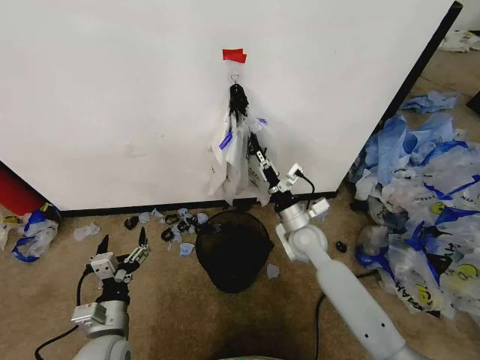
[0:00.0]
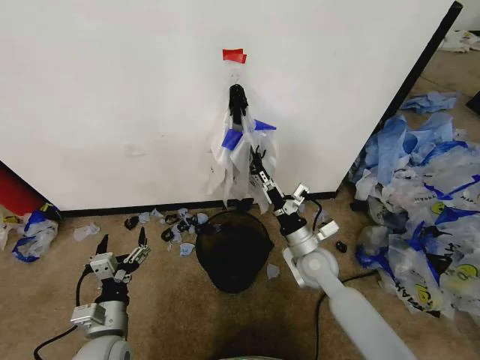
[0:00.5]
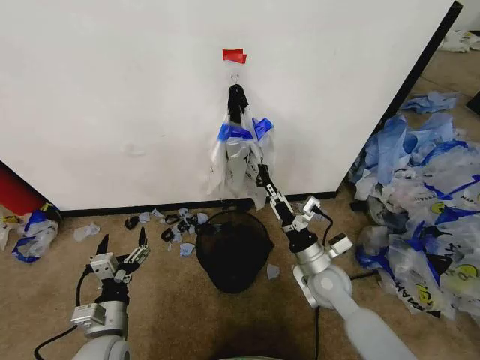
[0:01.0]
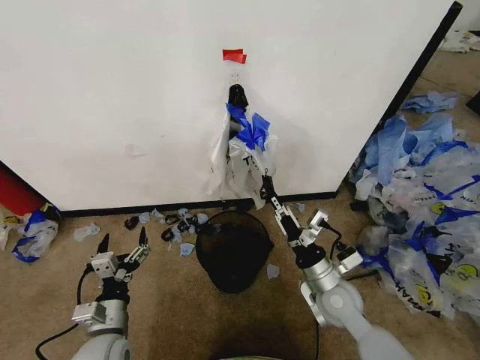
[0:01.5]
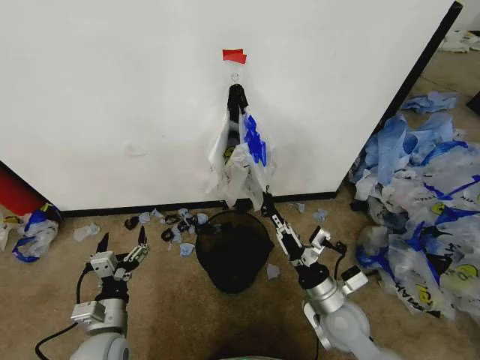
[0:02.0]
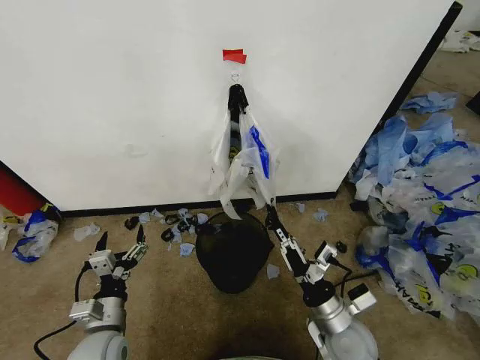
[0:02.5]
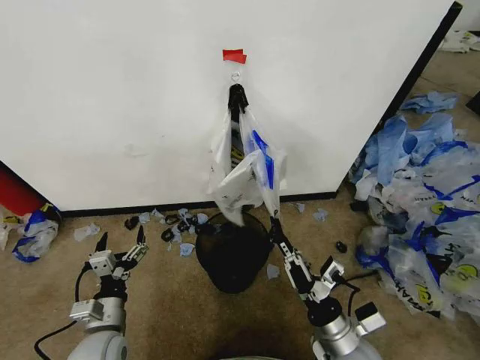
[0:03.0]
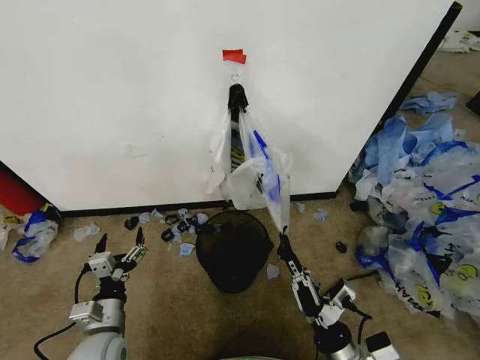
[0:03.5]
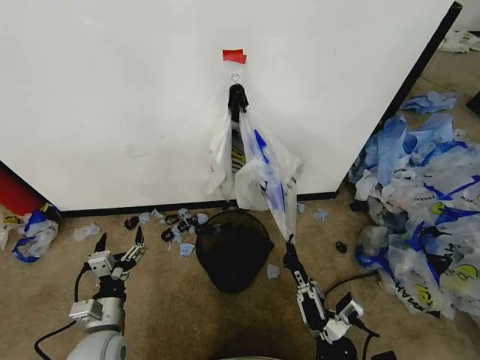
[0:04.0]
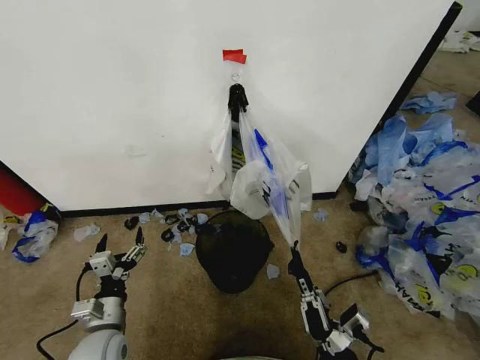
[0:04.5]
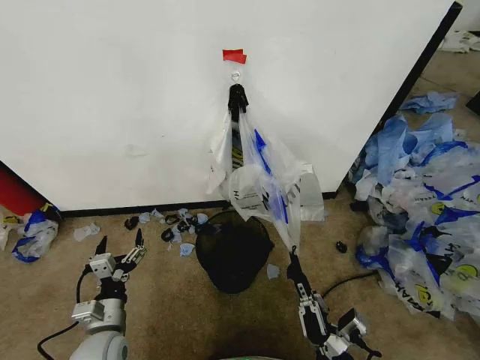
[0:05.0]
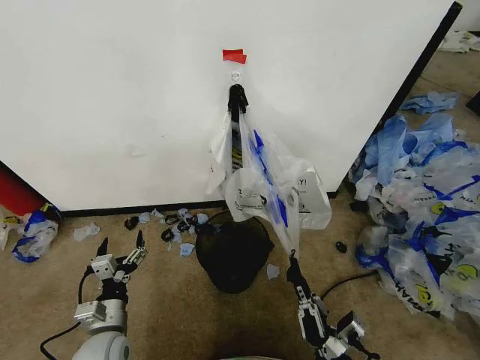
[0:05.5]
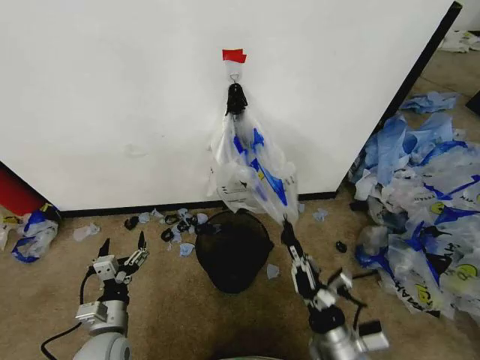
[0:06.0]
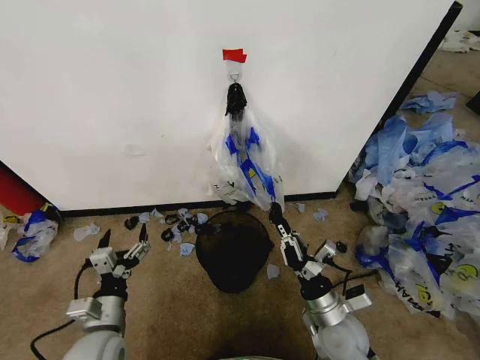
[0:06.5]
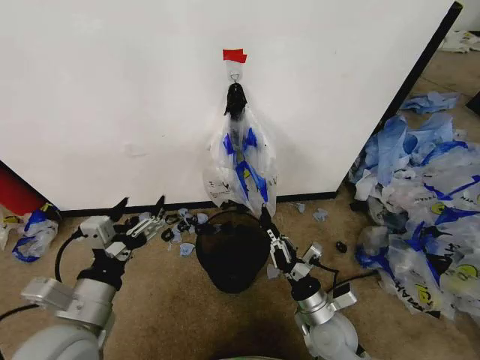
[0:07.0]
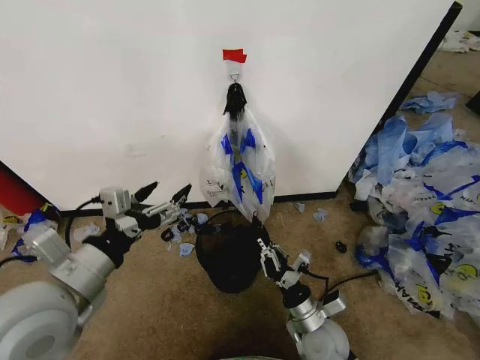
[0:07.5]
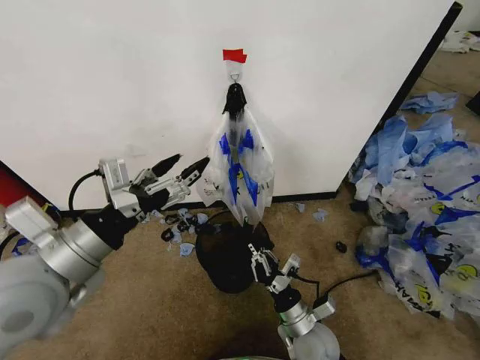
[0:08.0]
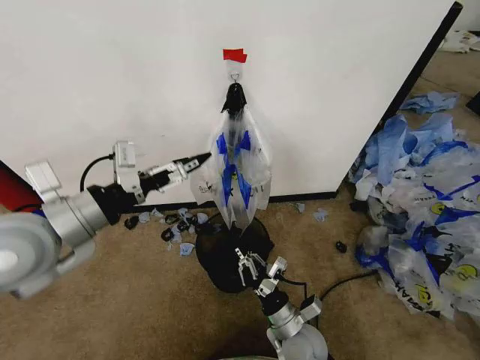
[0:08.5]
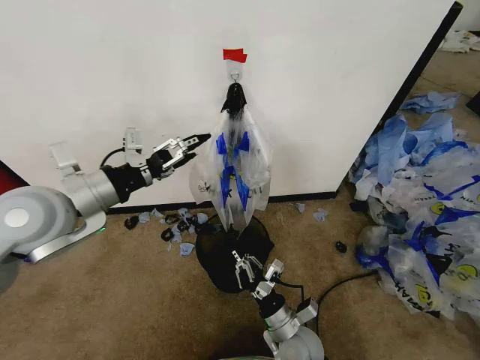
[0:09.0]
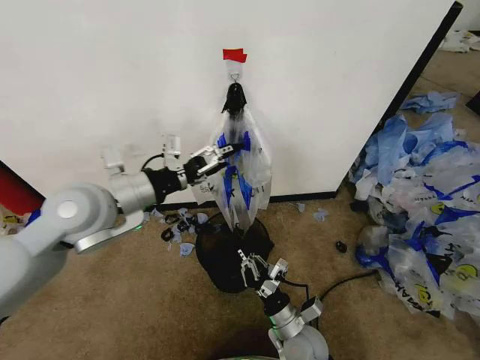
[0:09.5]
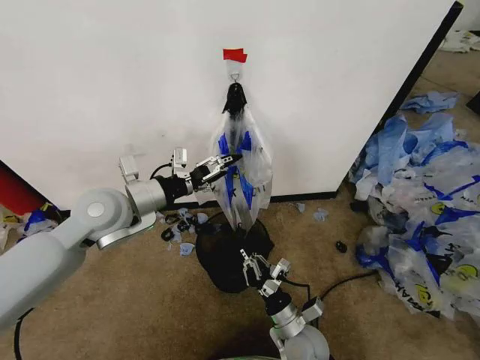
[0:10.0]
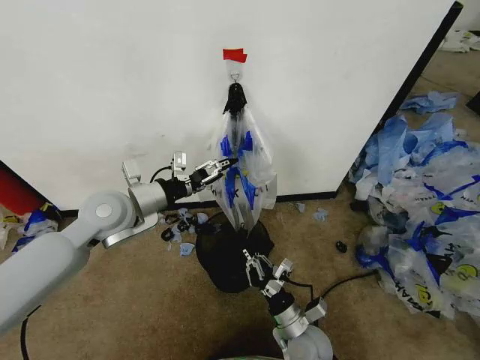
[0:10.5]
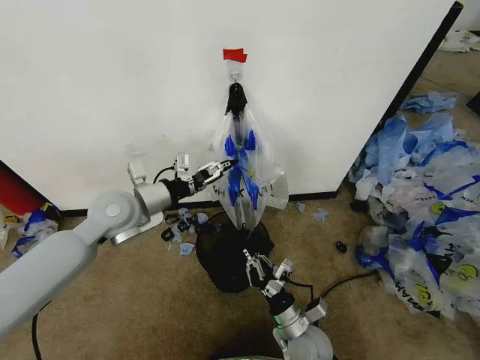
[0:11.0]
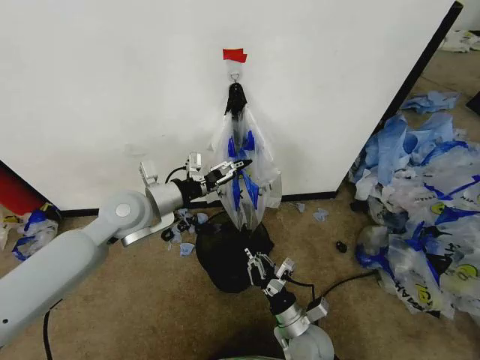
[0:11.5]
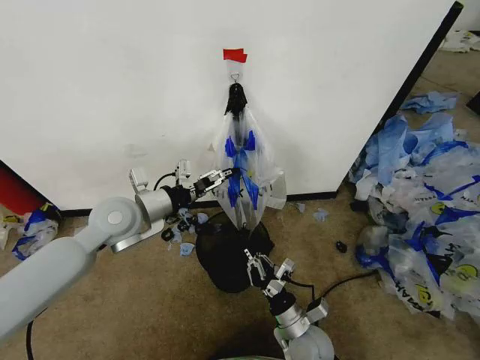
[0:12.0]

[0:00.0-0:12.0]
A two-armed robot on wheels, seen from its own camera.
Task of the whole recording: Pick up the garbage bag from the wall and place it over the trash bin.
0:00.0 to 0:02.0: The right gripper moves backward, about 15 cm.
0:02.0 to 0:04.0: The right gripper heads backward, covering some 15 cm.
0:04.0 to 0:06.0: The right gripper travels forward by approximately 5 cm.
0:06.0 to 0:08.0: The right gripper travels forward by some 5 cm, while the left gripper travels upward by roughly 30 cm.
0:08.0 to 0:10.0: The left gripper travels forward by roughly 15 cm.
0:10.0 to 0:12.0: The grippers make only small movements.

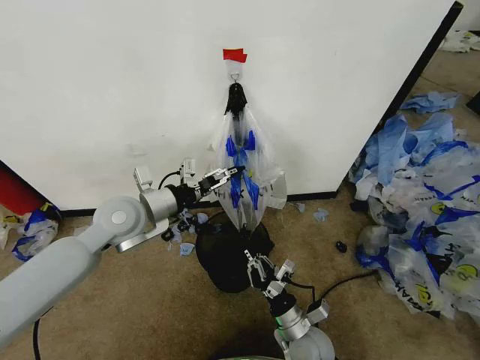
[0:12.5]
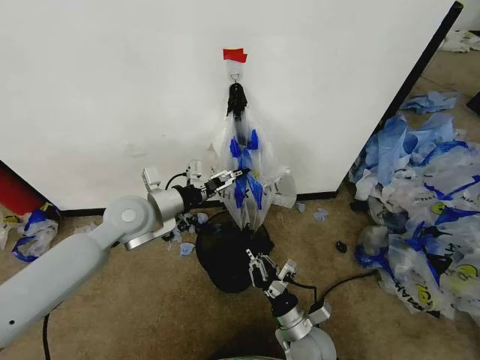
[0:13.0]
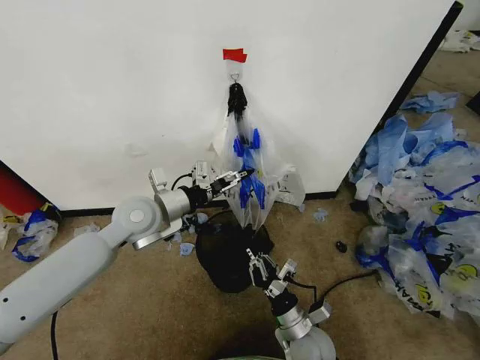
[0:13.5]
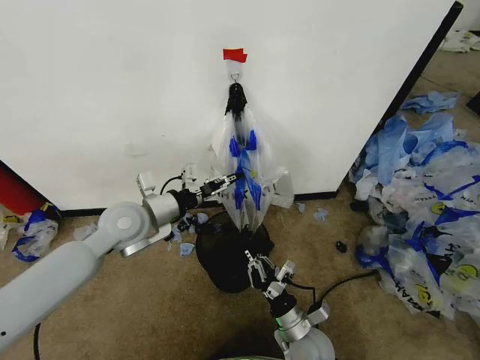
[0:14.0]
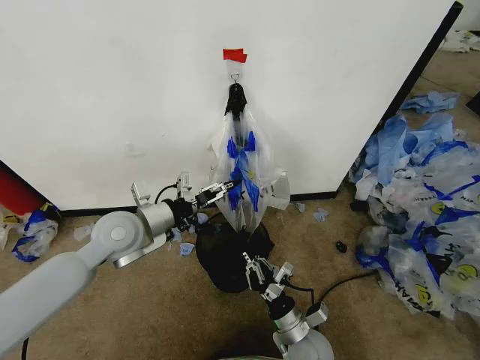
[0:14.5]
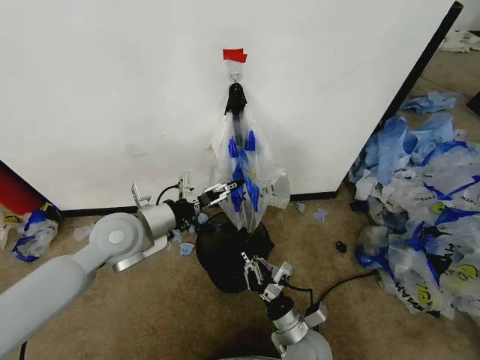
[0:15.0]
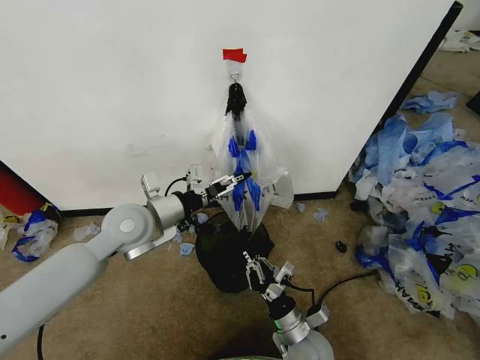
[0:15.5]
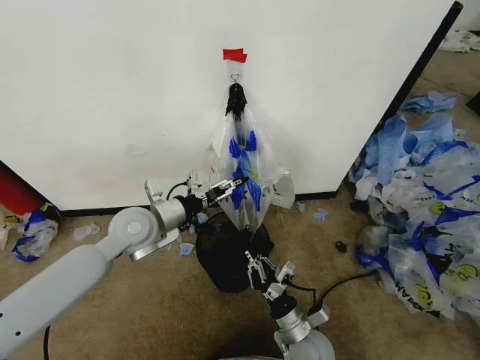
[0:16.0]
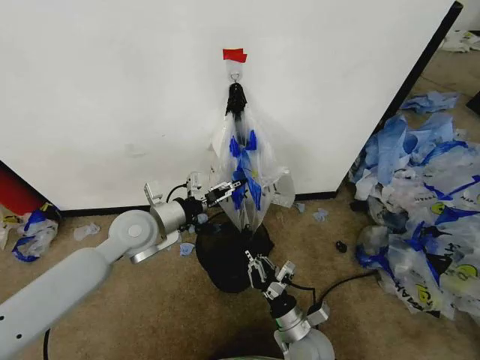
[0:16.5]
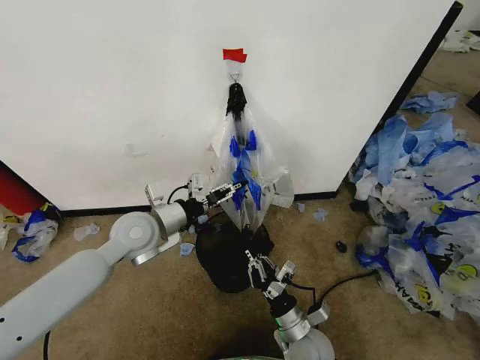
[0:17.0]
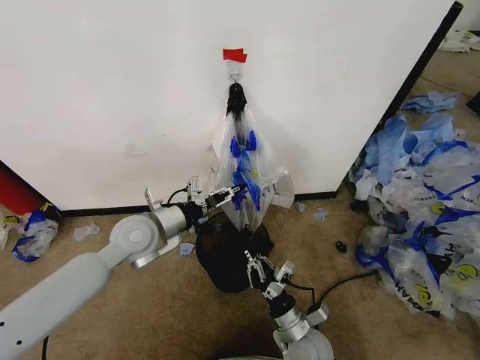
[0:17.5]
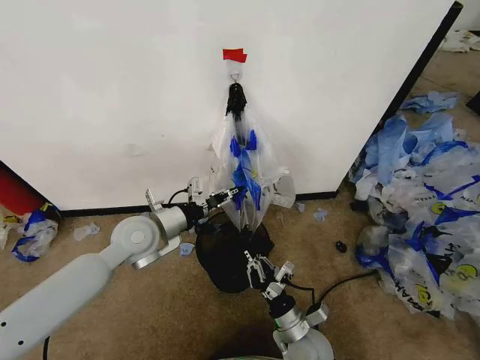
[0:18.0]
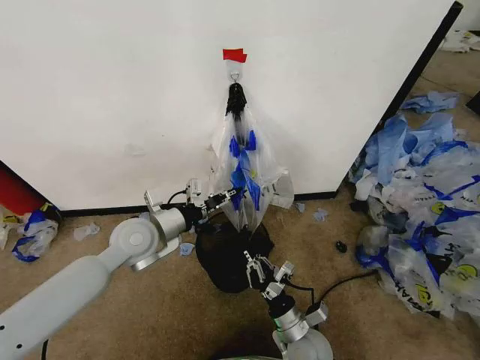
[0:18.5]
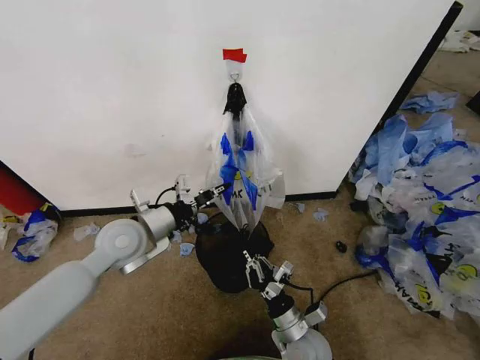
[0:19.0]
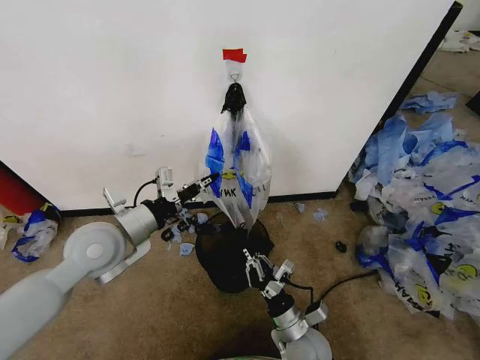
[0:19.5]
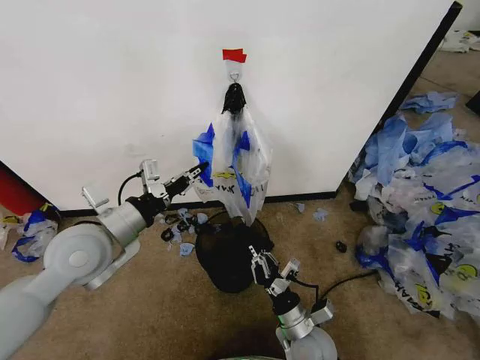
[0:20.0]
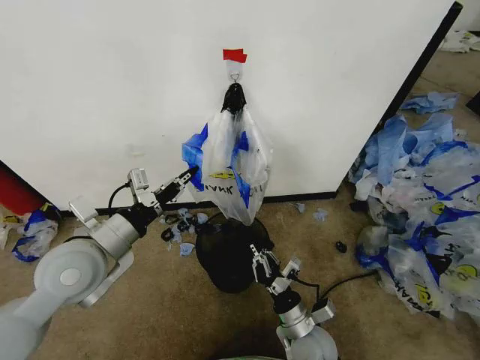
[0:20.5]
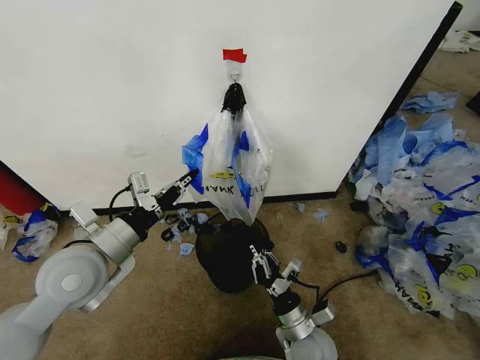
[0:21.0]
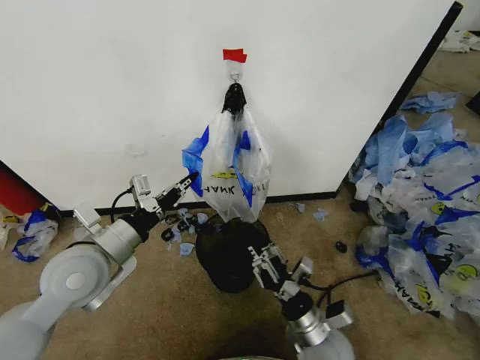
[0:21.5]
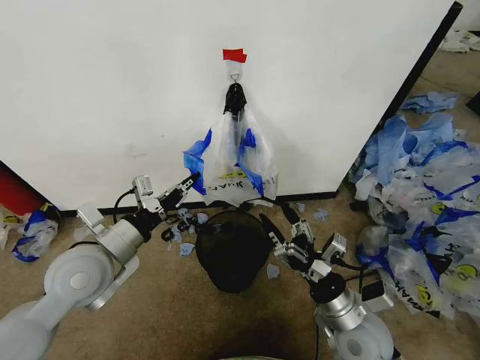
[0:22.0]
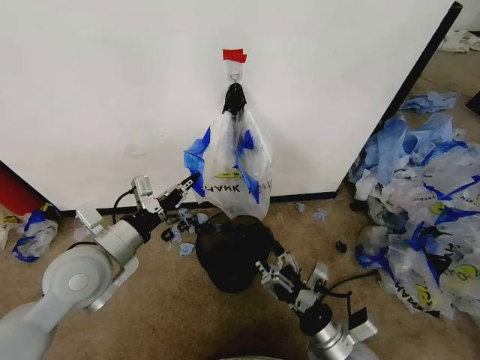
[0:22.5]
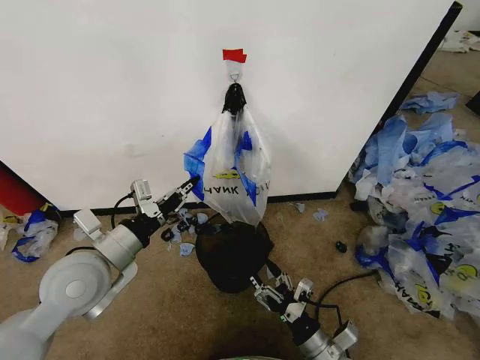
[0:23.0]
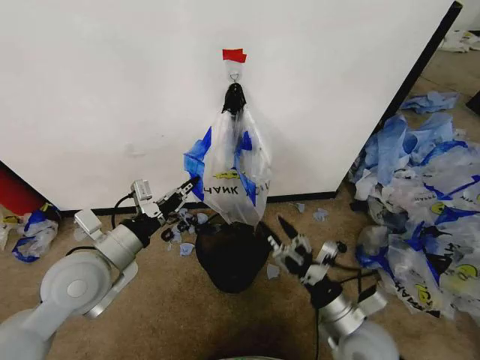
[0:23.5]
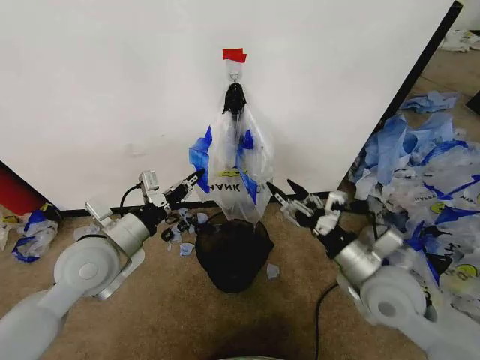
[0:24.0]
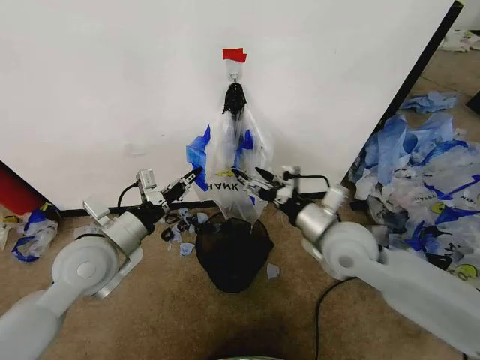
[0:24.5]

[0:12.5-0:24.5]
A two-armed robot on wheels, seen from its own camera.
Task of the whole recording: Pick up the garbage bag from the wall and place it over the trash bin.
0:12.5 to 0:14.5: The left gripper closes, then reopens.
0:14.5 to 0:16.5: The grippers stay close to where they were, moving slightly.
0:16.5 to 0:18.5: The left gripper closes its fingers.
0:18.5 to 0:20.5: The left gripper heads backward and upward, covering approximately 10 cm.
0:20.5 to 0:22.5: The right gripper moves upward, some 10 cm, and opens its fingers.
0:22.5 to 0:24.5: The right gripper moves forward and upward, some 20 cm.

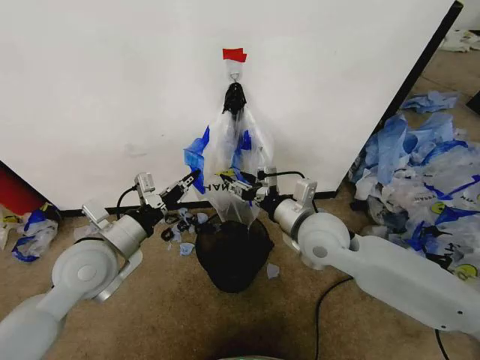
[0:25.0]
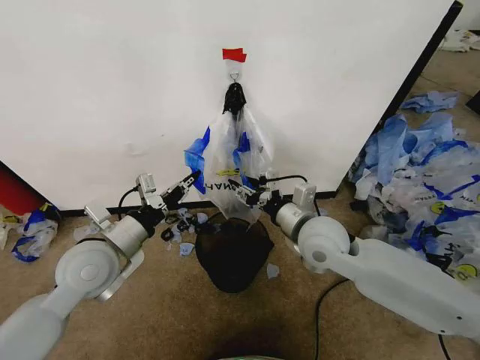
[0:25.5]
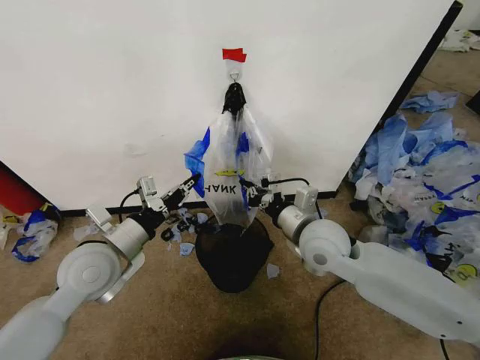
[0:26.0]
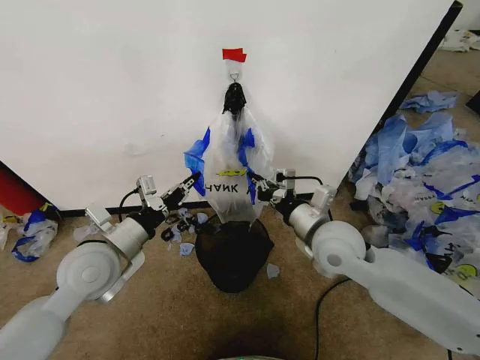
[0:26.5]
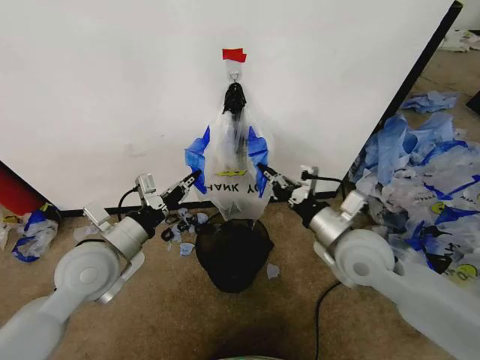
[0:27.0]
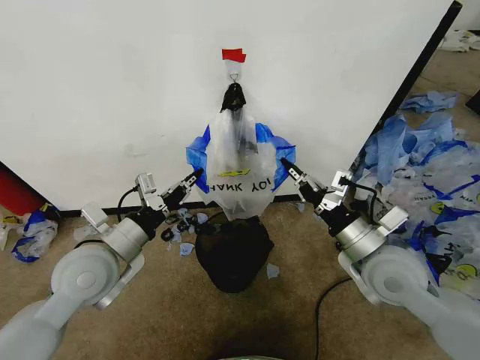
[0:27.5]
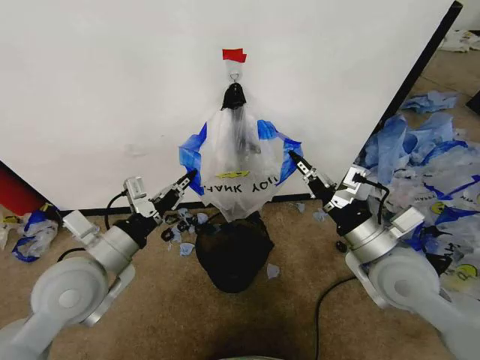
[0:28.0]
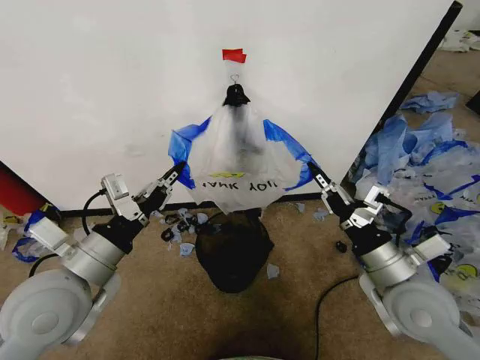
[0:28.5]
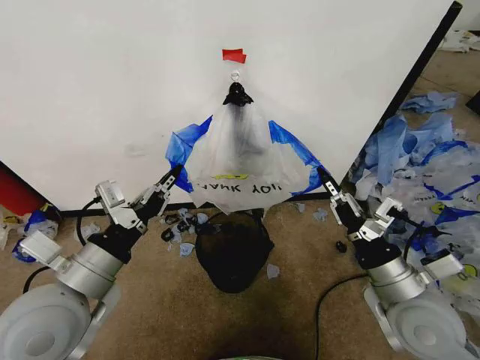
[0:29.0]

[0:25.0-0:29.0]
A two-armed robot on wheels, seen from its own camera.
Task of the whole recording: Pick up the garbage bag from the wall and place it over the trash bin.
0:25.0 to 0:27.0: The right gripper goes about 5 cm to the right, and closes up.
0:27.0 to 0:29.0: The right gripper travels backward and to the right by some 10 cm. Meanwhile the left gripper travels backward by some 10 cm.
